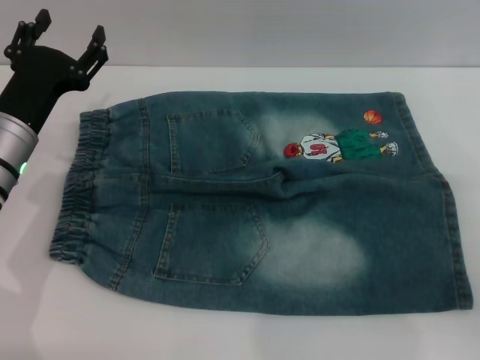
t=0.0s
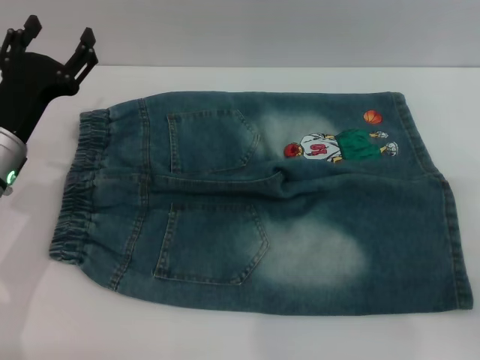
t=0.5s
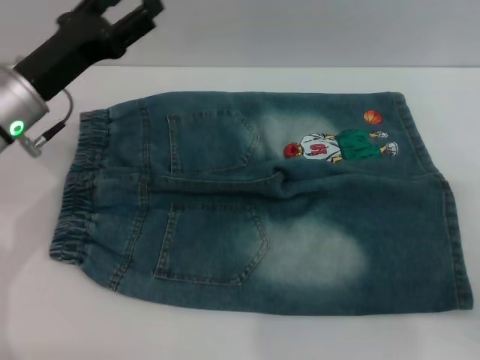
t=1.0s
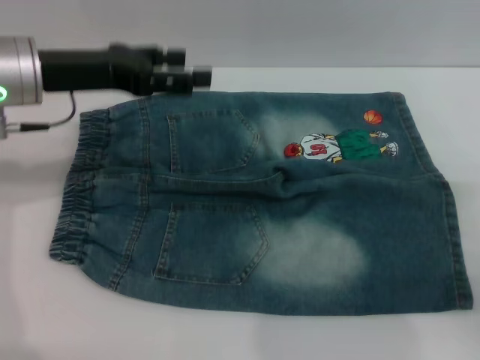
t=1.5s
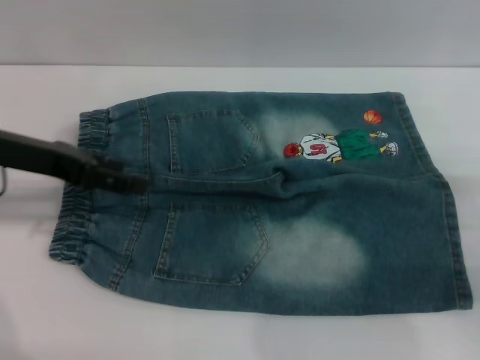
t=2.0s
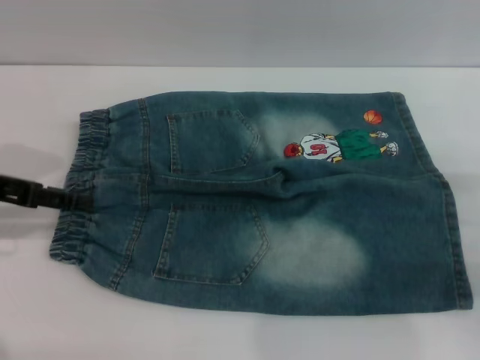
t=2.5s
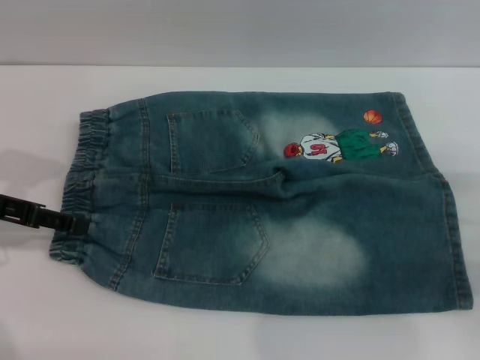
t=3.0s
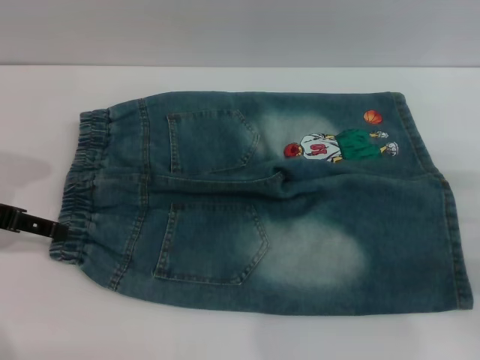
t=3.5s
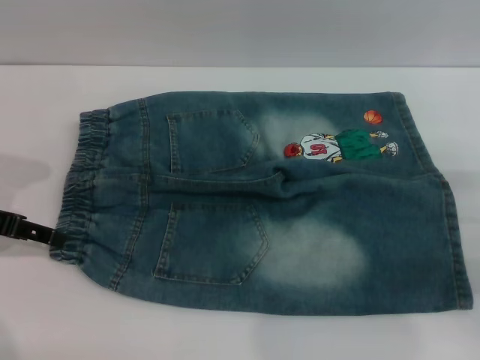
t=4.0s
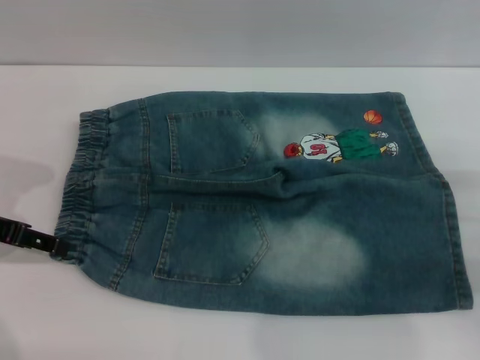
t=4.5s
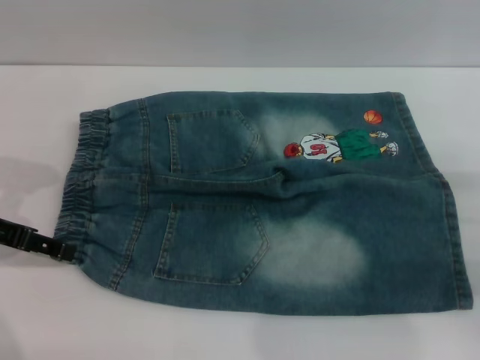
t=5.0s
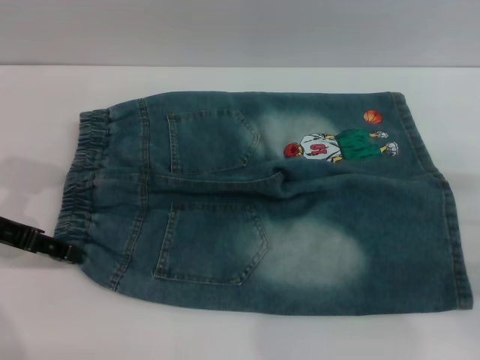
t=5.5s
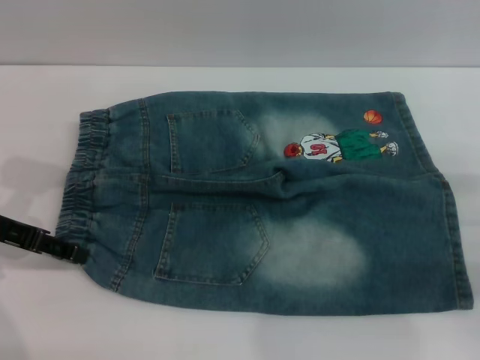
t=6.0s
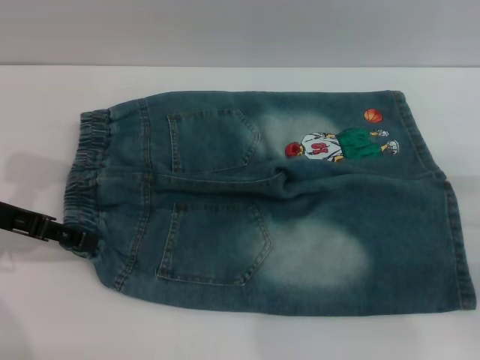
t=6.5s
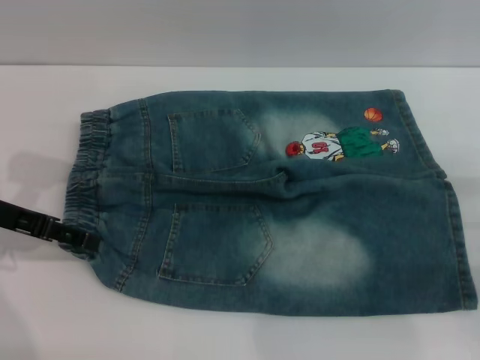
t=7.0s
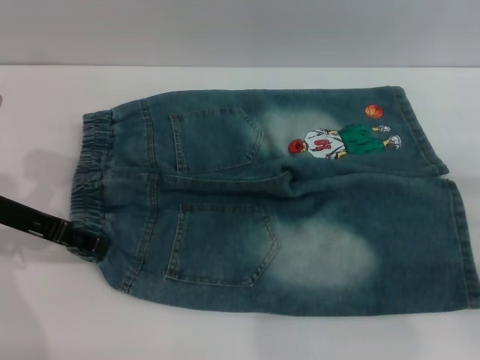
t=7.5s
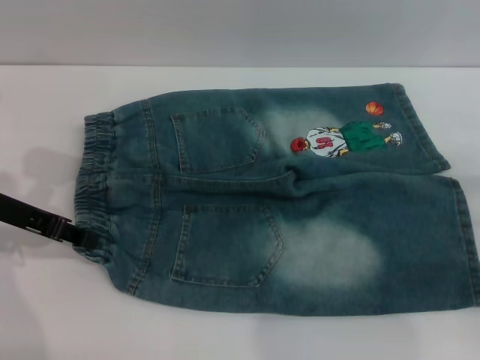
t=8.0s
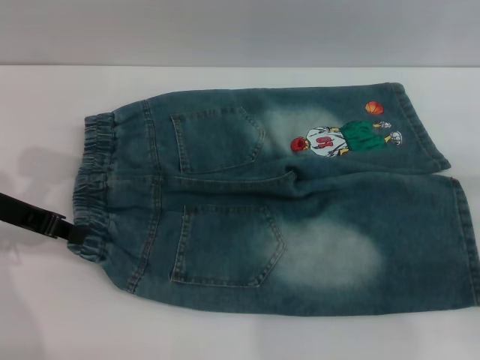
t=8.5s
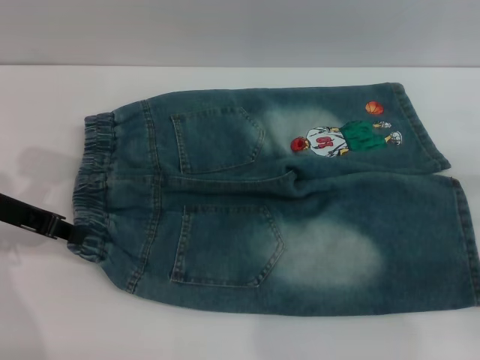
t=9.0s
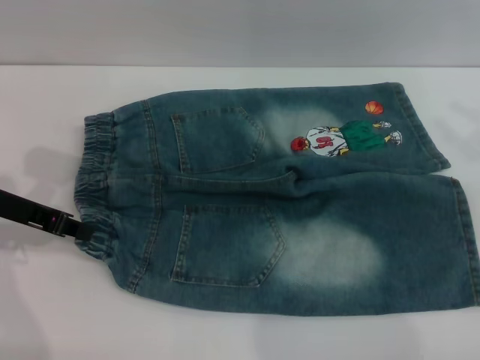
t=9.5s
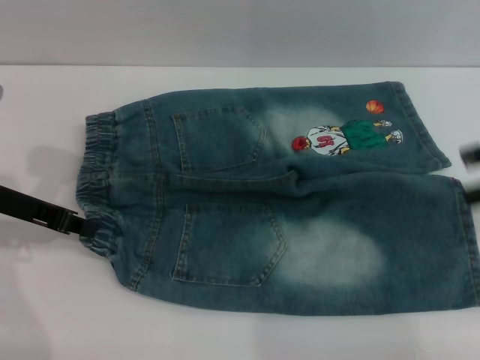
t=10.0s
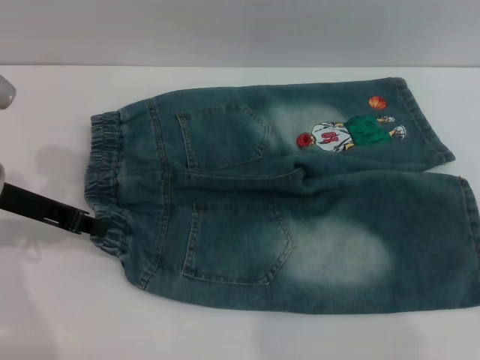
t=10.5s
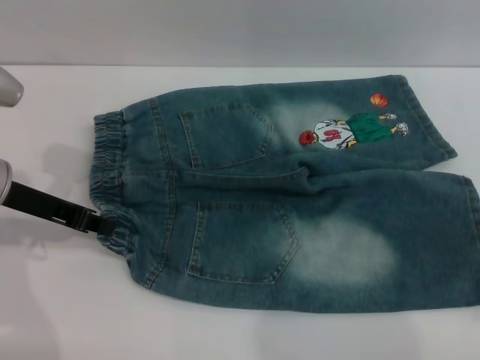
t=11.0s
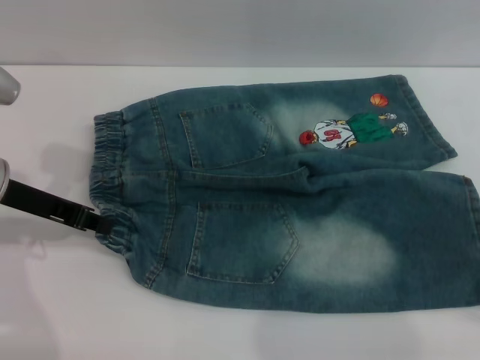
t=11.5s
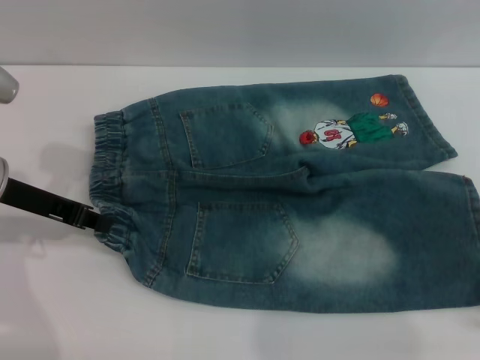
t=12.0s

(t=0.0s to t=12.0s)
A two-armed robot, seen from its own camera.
t=0.0s - t=2.0s: The left gripper heads upward, covering some 10 cm.
t=2.0s - t=4.0s: The left gripper is displaced to the left by approximately 5 cm.
t=4.0s - t=6.0s: The grippers make only small movements.
t=6.0s - t=8.0s: The left gripper closes its fingers.
t=8.0s - t=10.0s: The right gripper heads upward, covering approximately 20 cm. The left gripper closes.
t=10.0s - t=12.0s: The right gripper shifts approximately 10 cm downward.

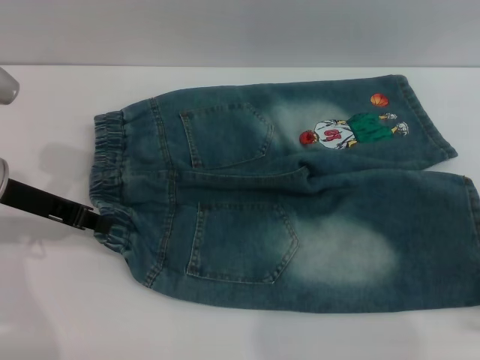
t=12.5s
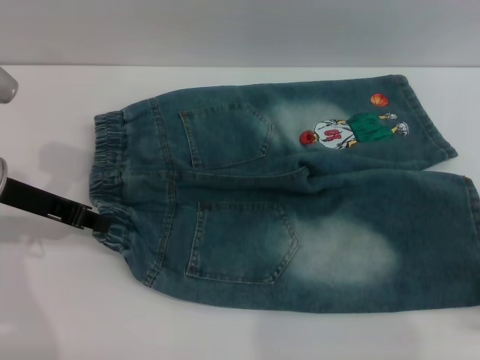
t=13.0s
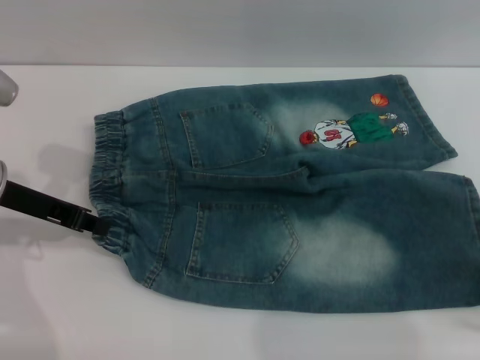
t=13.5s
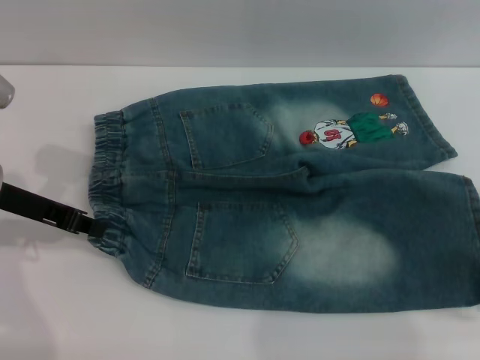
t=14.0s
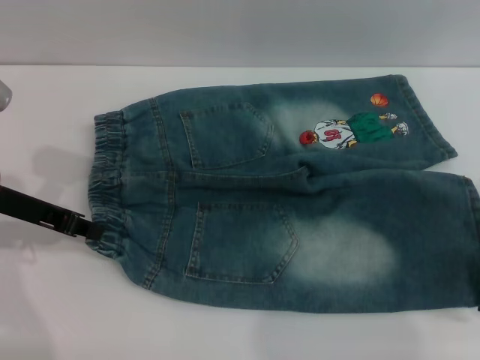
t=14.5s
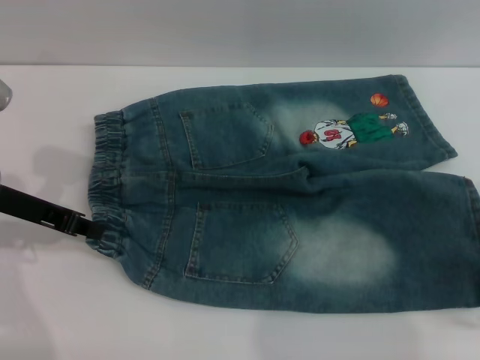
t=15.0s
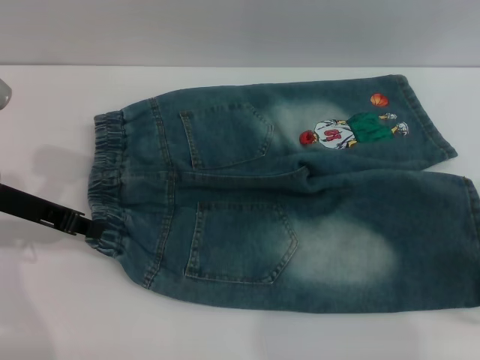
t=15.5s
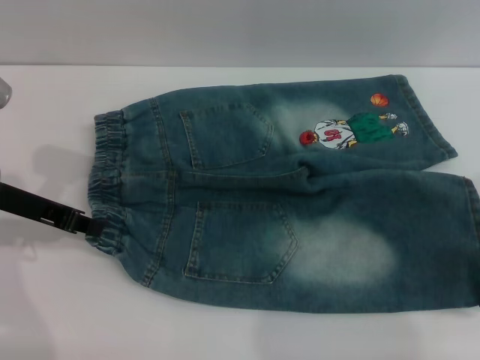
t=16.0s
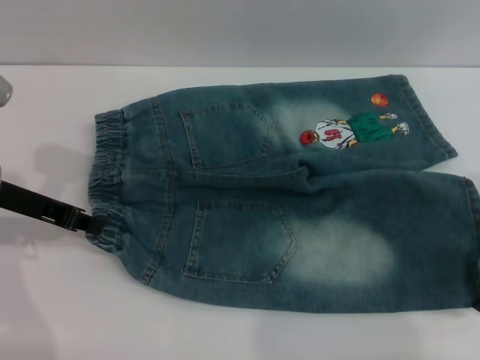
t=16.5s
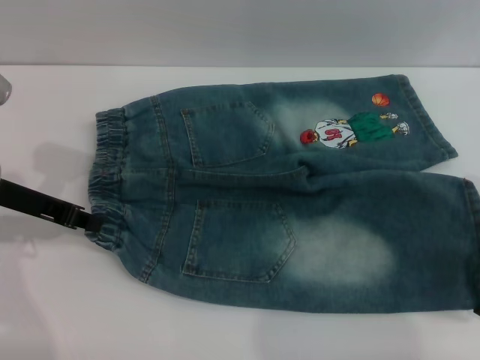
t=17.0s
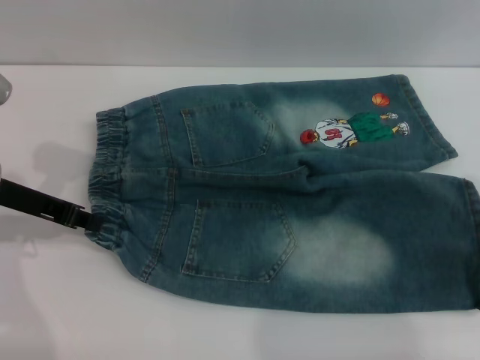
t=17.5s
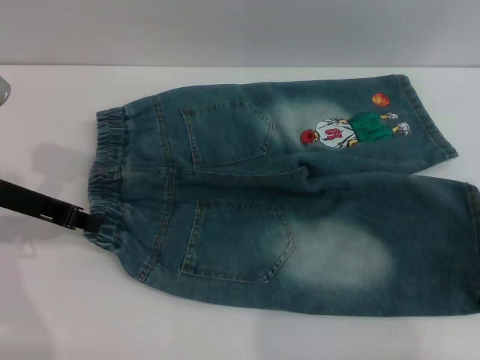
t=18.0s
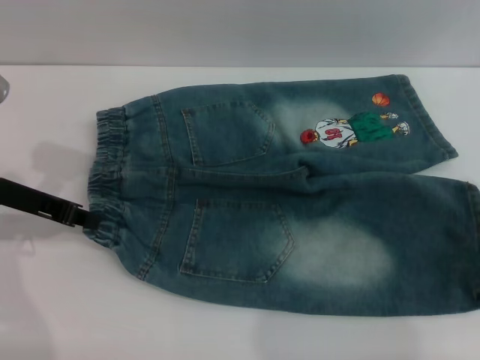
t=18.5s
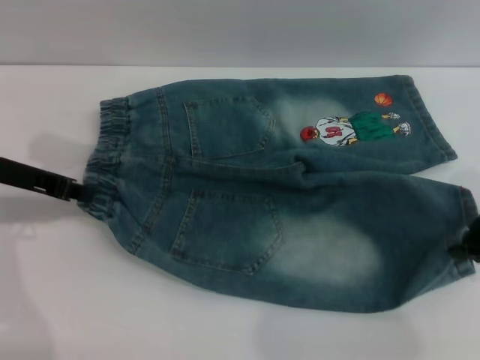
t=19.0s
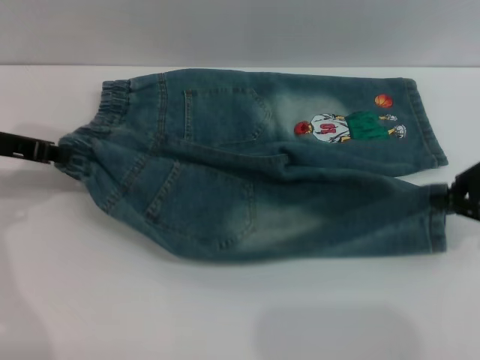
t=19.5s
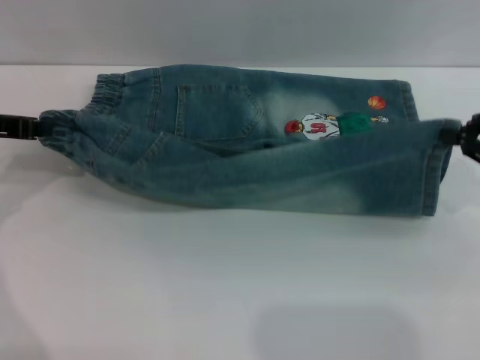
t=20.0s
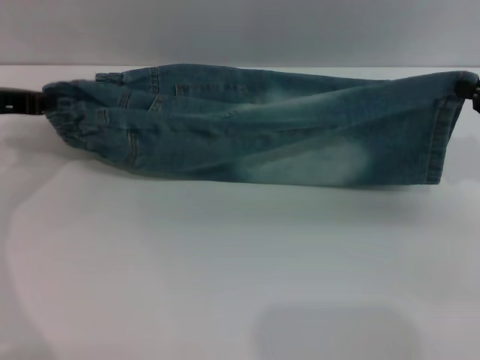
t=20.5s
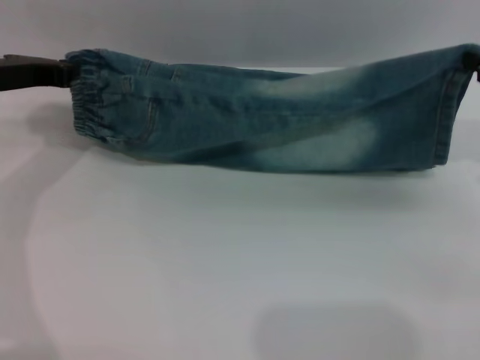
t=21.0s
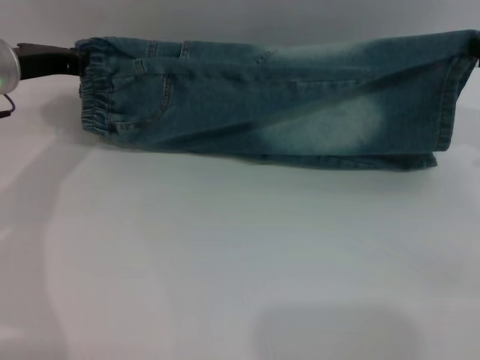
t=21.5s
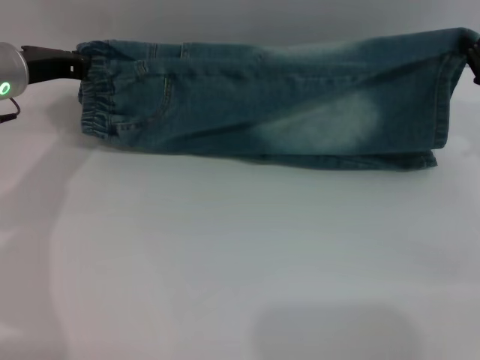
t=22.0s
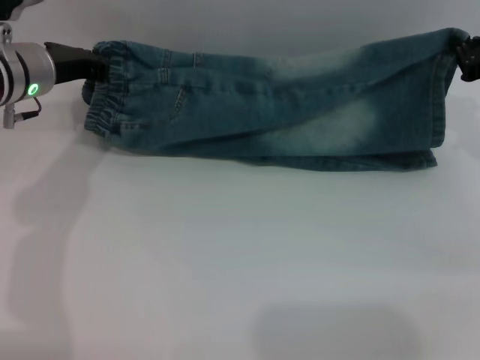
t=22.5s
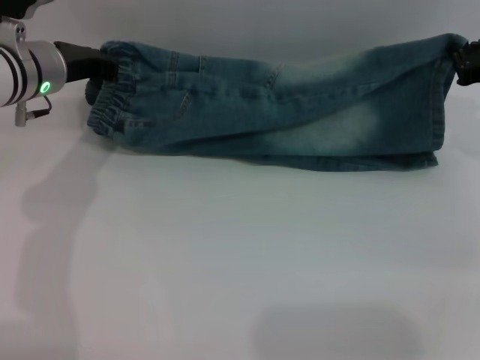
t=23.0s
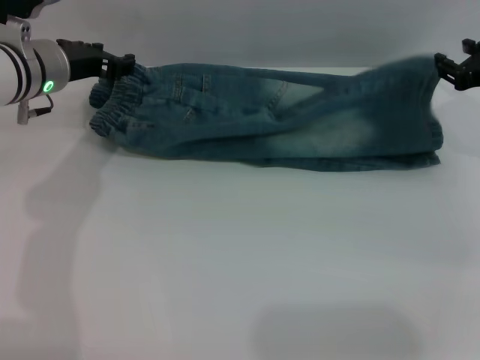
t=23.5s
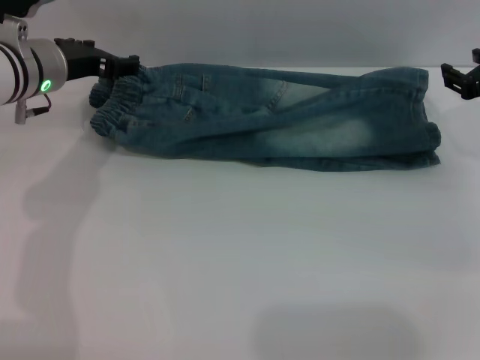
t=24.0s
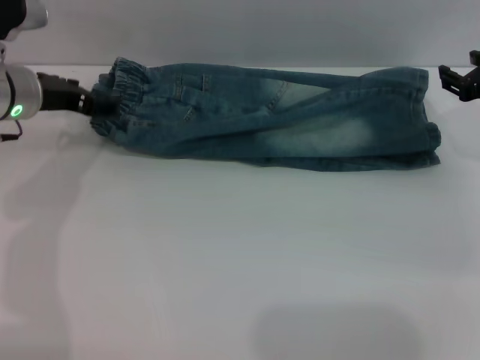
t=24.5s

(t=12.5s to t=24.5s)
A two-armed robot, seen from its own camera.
Step, t=12.5s - t=24.0s: Fold the bottom of the pants upward with both grippers.
t=12.5s - t=16.5s: The grippers make only small movements.
t=16.5s - t=18.5s: The right gripper closes its fingers.
t=18.5s - t=20.5s: The right gripper changes place by approximately 5 cm. Meanwhile the left gripper changes place by some 5 cm.
t=20.5s - t=22.5s: The left gripper is displaced to the right and forward by about 10 cm. Meanwhile the right gripper heads forward, covering about 5 cm.
t=22.5s - t=24.5s: The left gripper opens up. The right gripper opens its fingers.

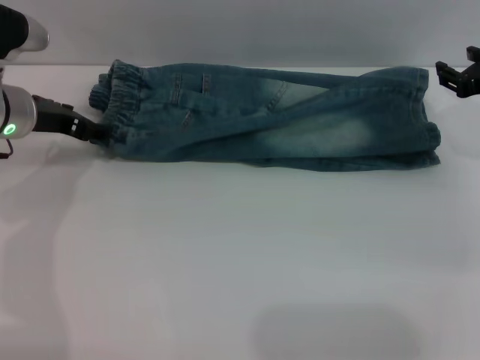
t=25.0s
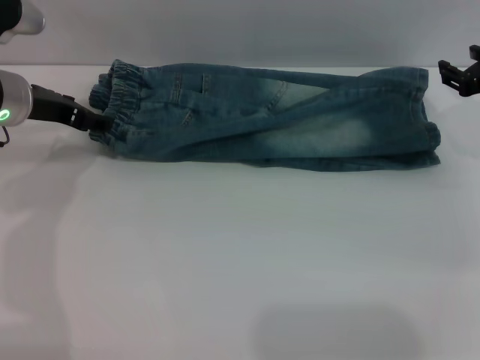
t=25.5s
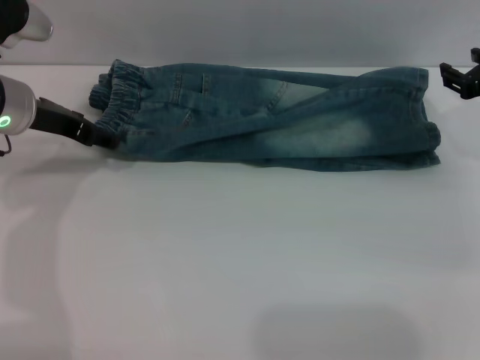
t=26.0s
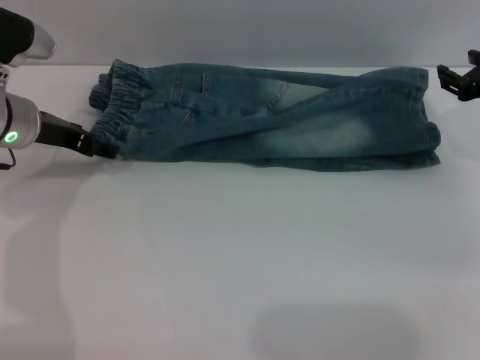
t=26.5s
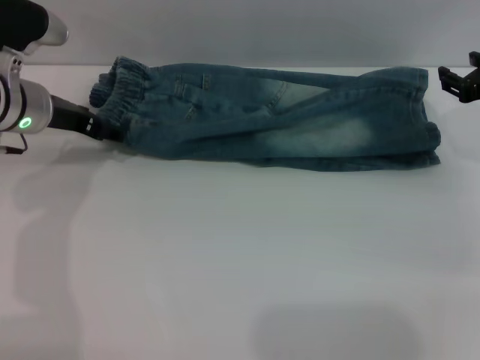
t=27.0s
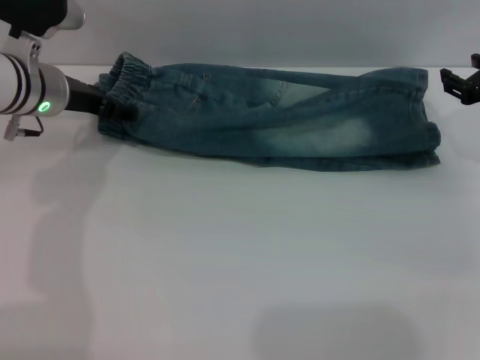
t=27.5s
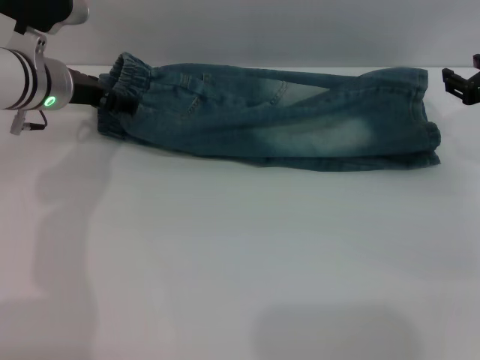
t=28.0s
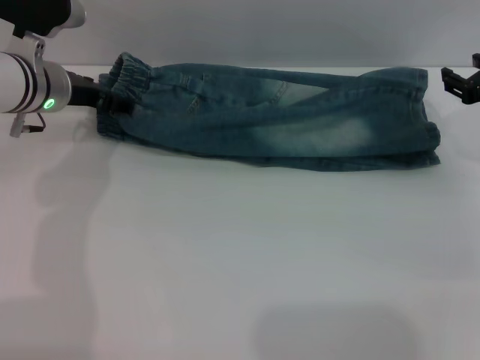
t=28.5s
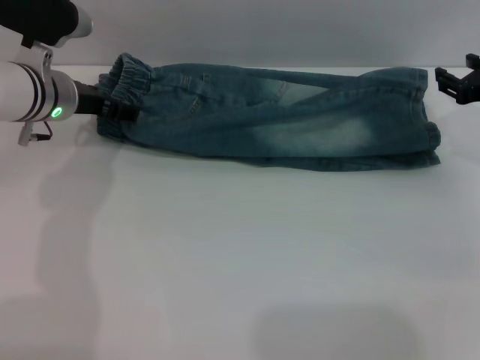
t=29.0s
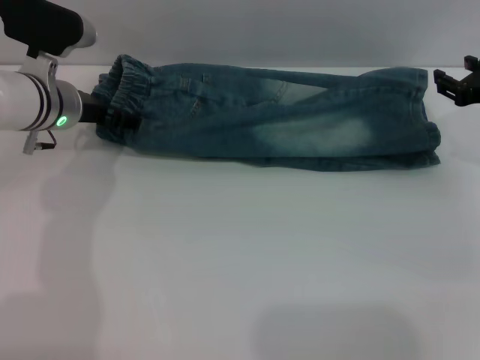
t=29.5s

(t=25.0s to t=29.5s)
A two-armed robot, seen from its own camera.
t=25.0s - t=29.5s: The grippers make only small movements.
